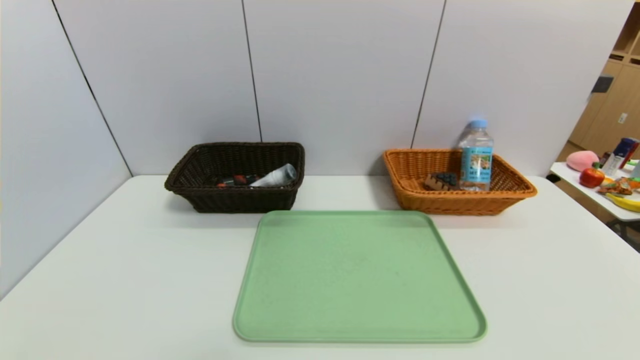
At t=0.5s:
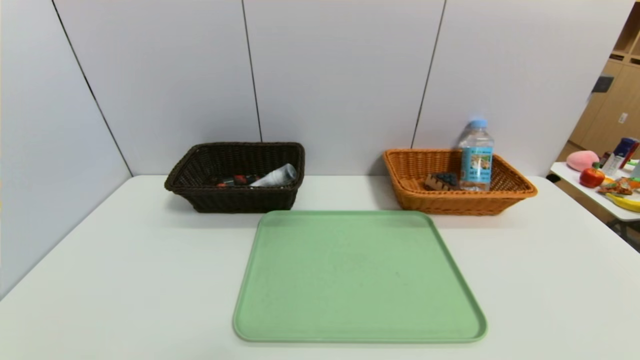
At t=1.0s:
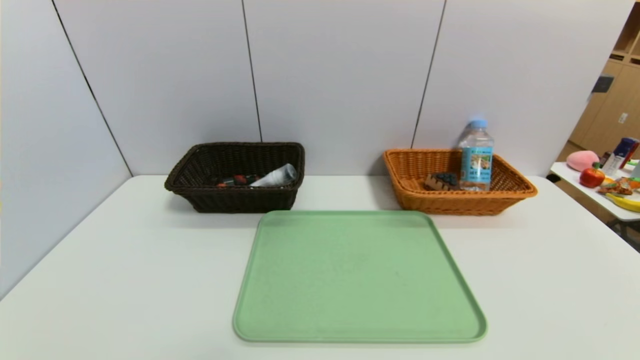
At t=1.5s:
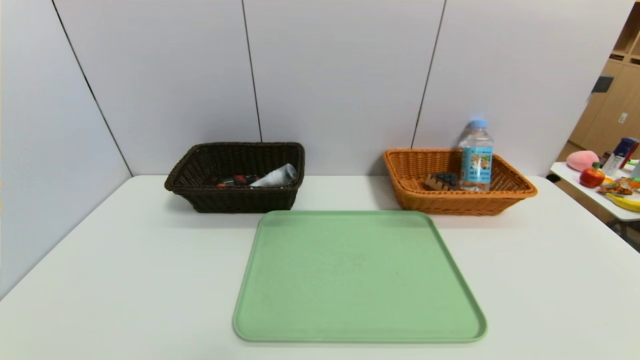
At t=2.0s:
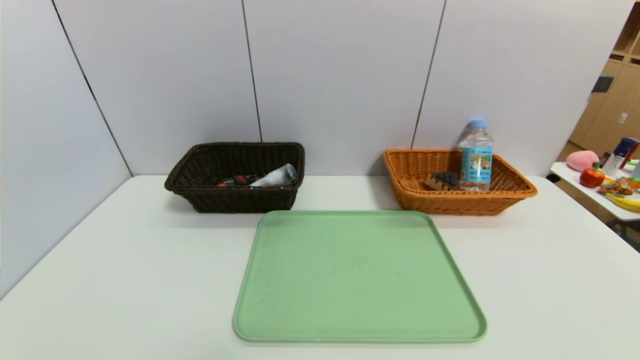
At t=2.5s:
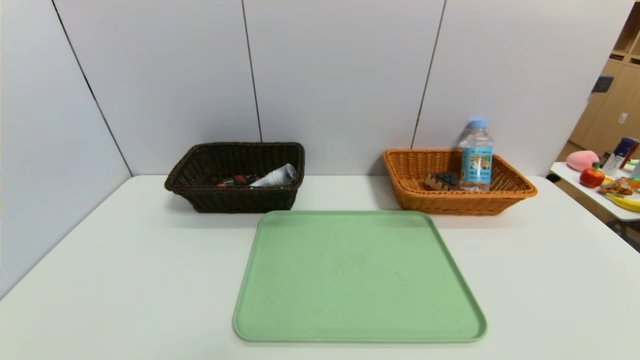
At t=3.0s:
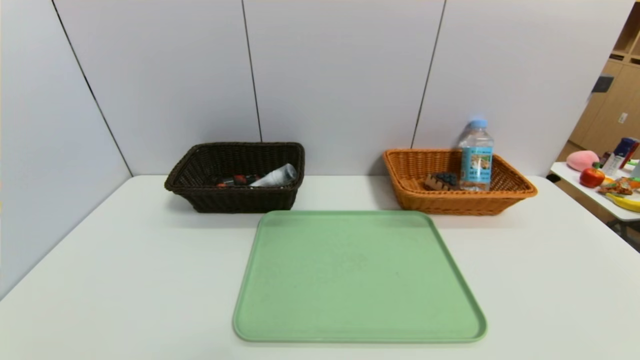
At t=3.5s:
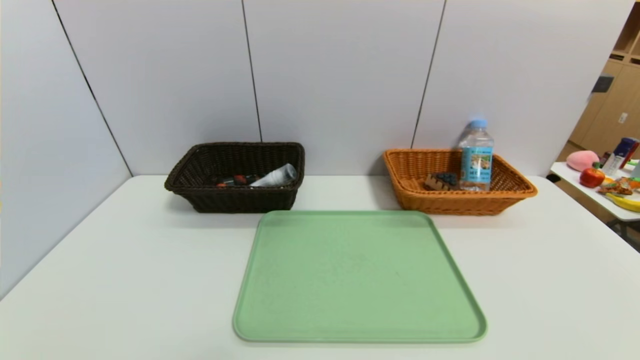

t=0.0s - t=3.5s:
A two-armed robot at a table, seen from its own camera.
Task of the whole recording: place the food in the right basket with the right gripper, and place the non food items in the left basket with the left gripper.
t=2.0s - t=3.5s: Both grippers stay about where they are.

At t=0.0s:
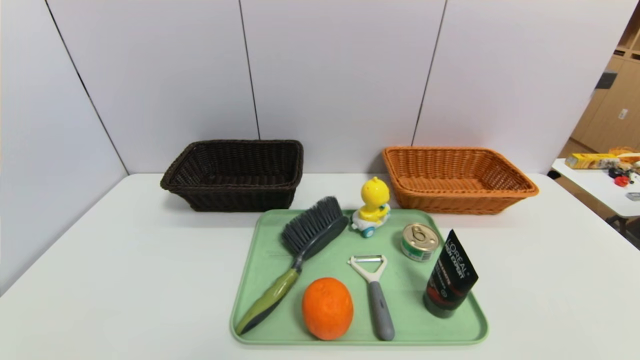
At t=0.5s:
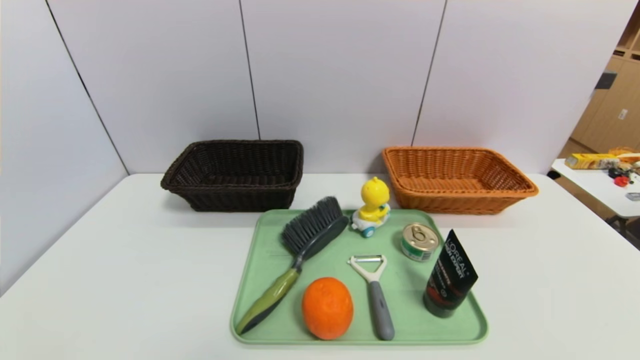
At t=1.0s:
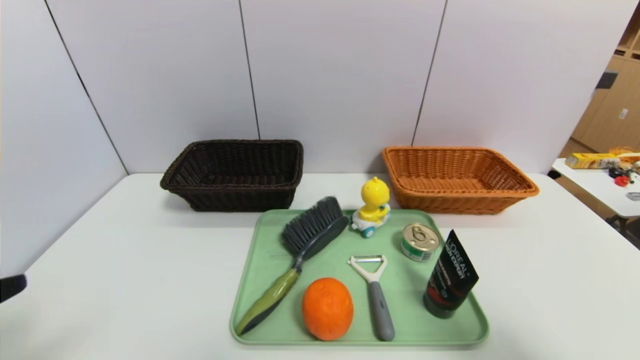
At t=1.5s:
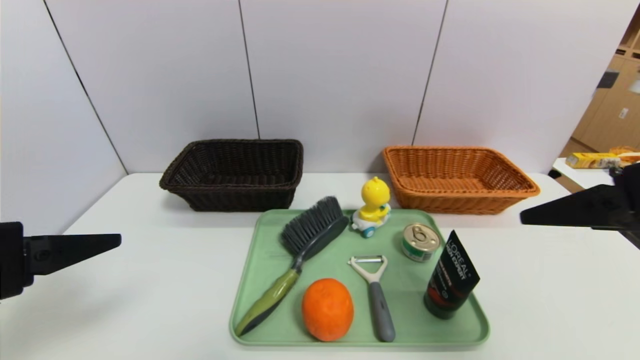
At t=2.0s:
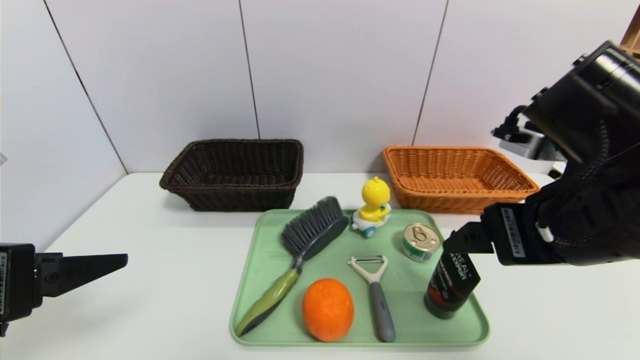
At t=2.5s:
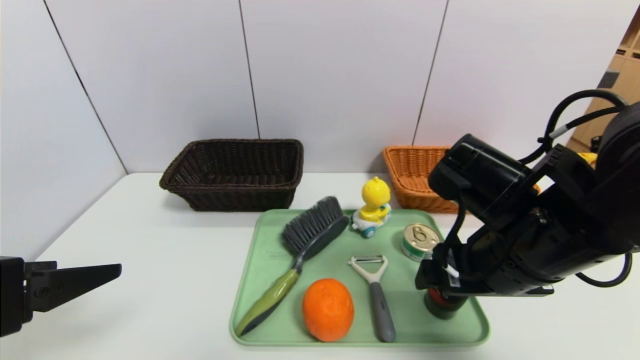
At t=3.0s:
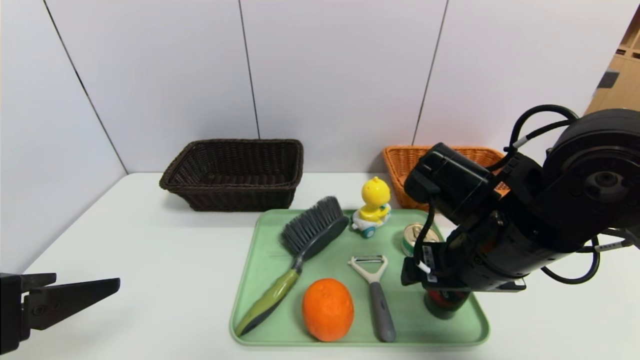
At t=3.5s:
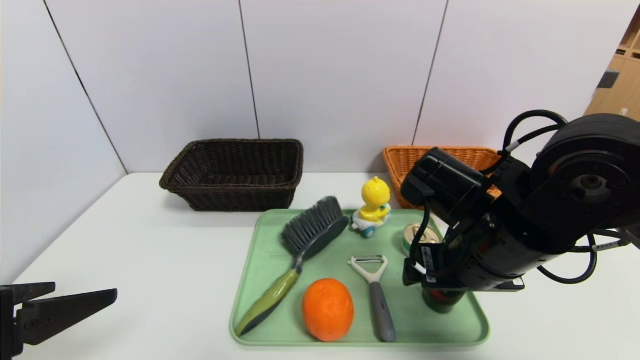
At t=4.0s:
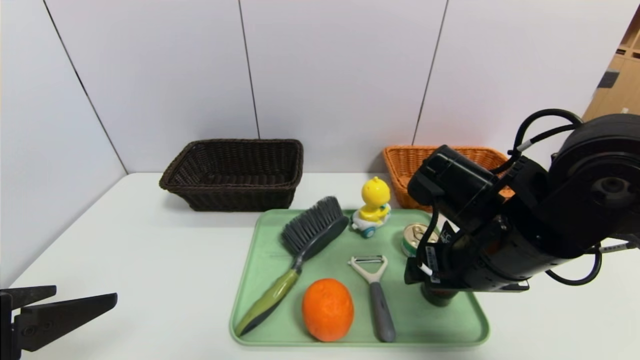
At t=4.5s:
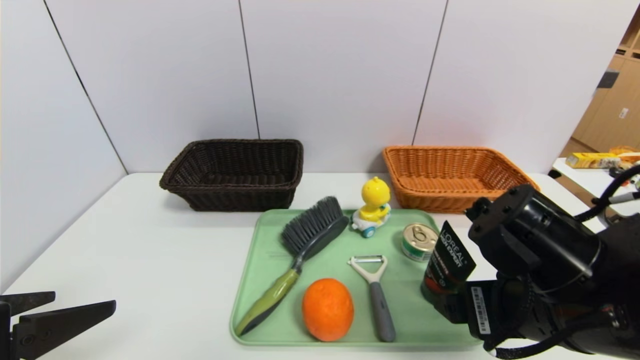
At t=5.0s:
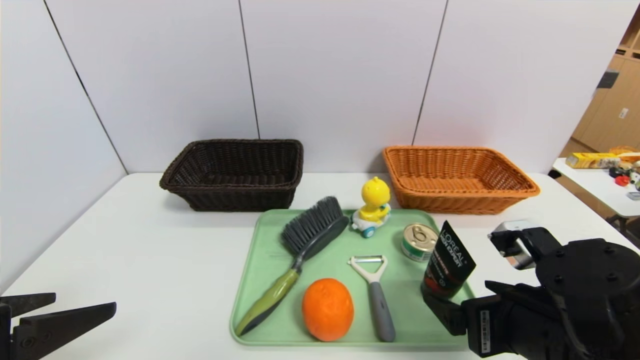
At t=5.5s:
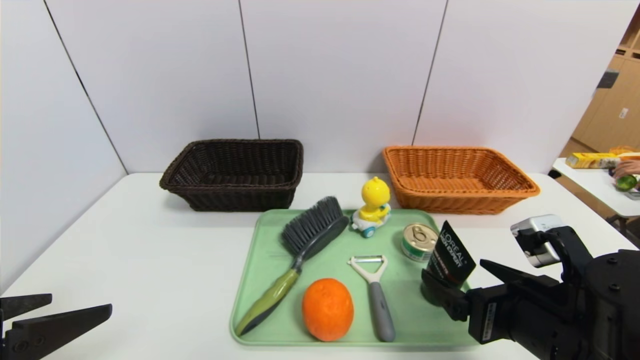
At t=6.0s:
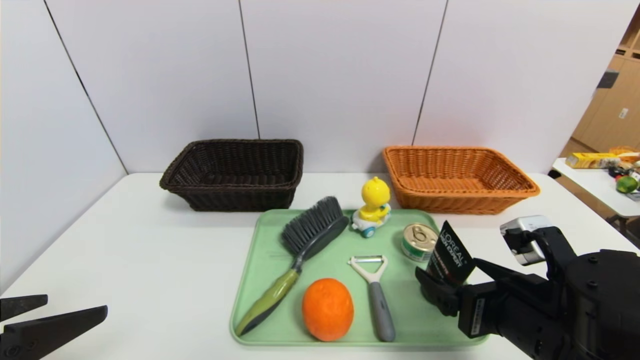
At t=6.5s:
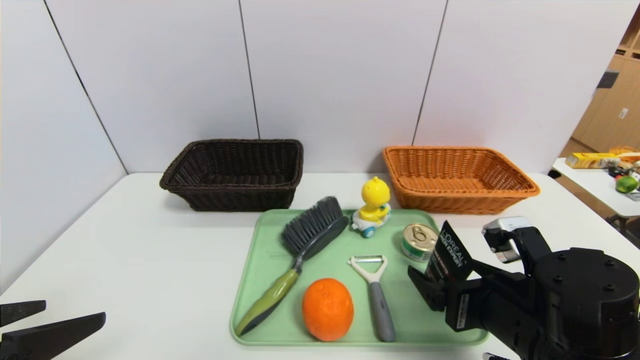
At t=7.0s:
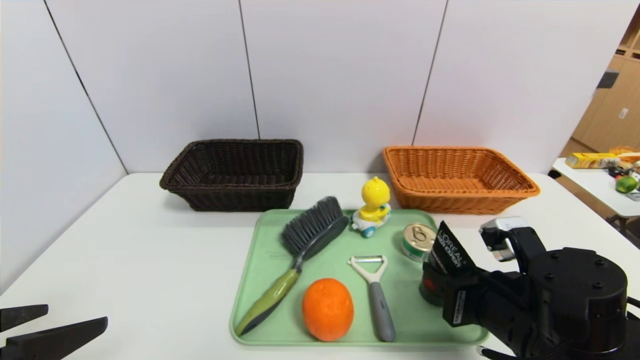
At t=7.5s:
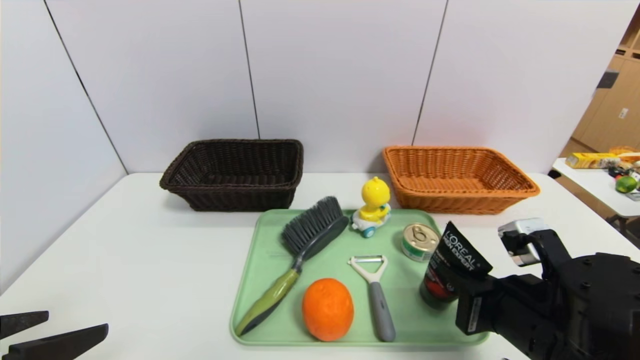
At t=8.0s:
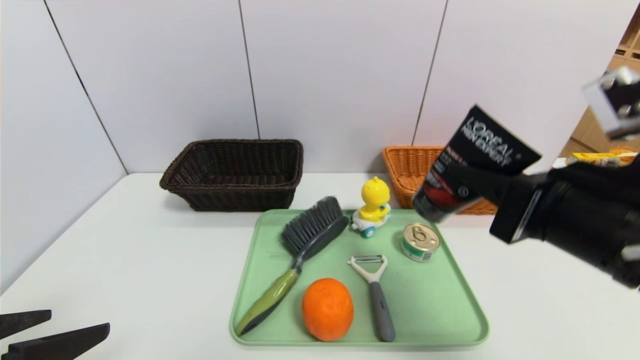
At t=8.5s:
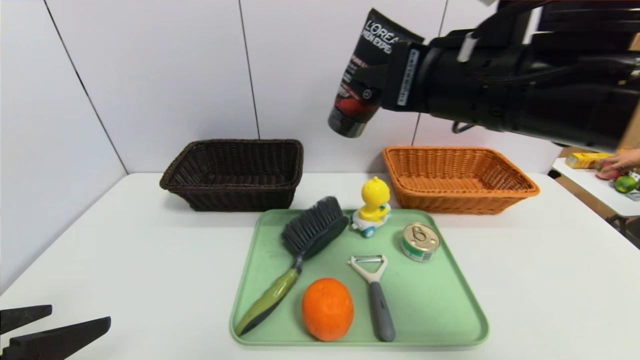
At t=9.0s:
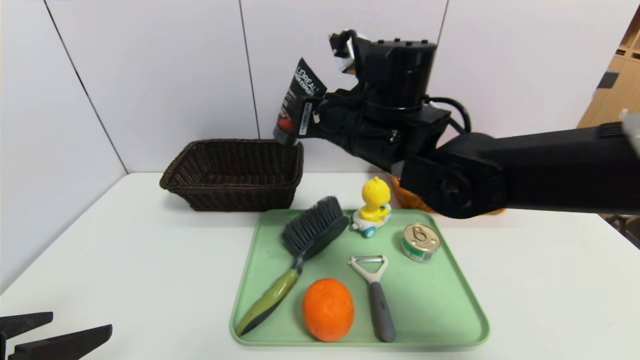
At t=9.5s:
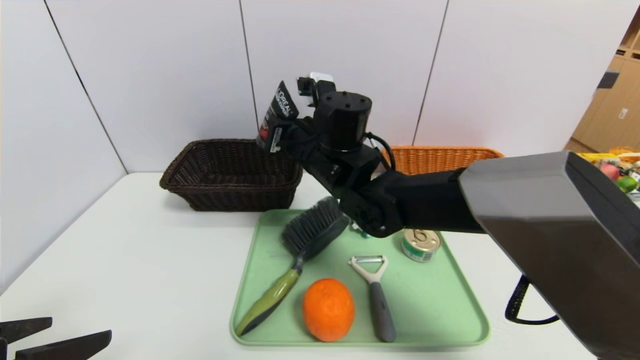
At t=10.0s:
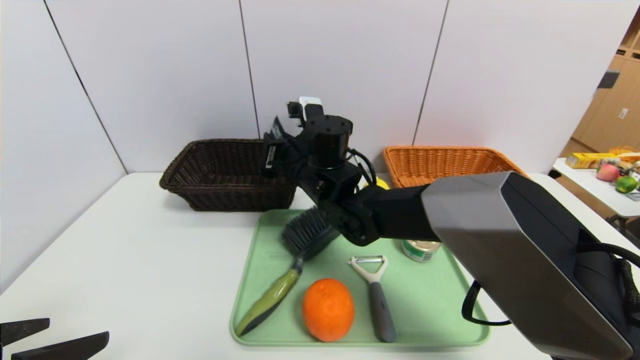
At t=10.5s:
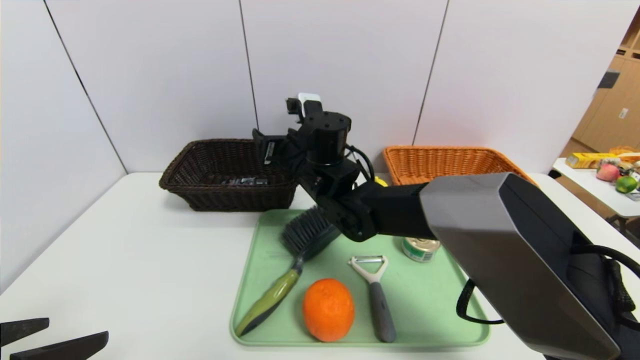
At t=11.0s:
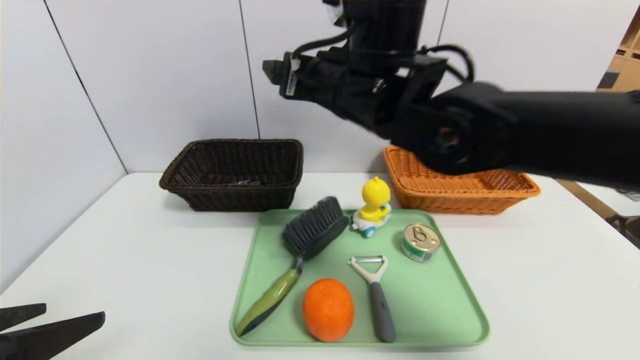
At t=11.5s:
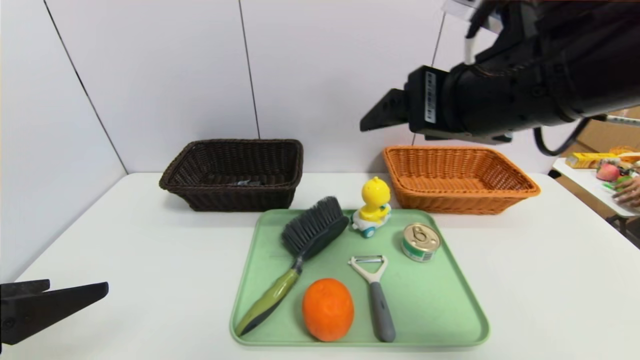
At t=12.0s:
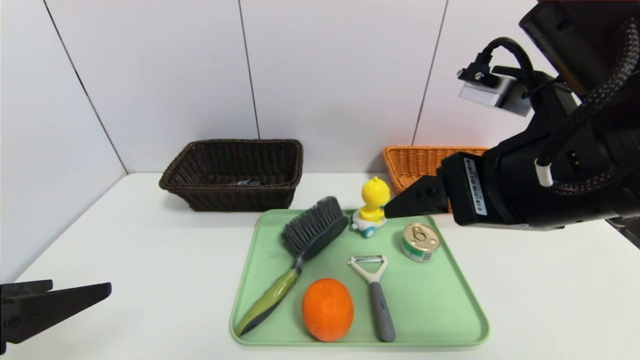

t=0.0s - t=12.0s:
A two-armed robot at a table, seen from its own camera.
Task of the whole recording: place the food in the right basket with the right gripper, and place the non food items in the left basket with the left gripper.
Step, t=0.0s - t=10.5s: Grasp the soft cleanser and put it in the left basket.
t=0.0s - t=2.0s: The right gripper heads upward, forward and to the left, covering approximately 30 cm. The left gripper goes roughly 20 cm upward and forward.
t=2.0s - t=4.0s: The right gripper travels downward by some 5 cm.
t=4.0s - t=6.0s: The right gripper goes roughly 10 cm downward and backward.
t=6.0s - t=8.0s: The right gripper heads upward, covering roughly 15 cm, and closes up.
t=8.0s - t=10.0s: The right gripper shifts about 30 cm to the left and forward.
t=10.0s - t=12.0s: The right gripper is displaced backward, to the right and upward by some 30 cm, and opens.

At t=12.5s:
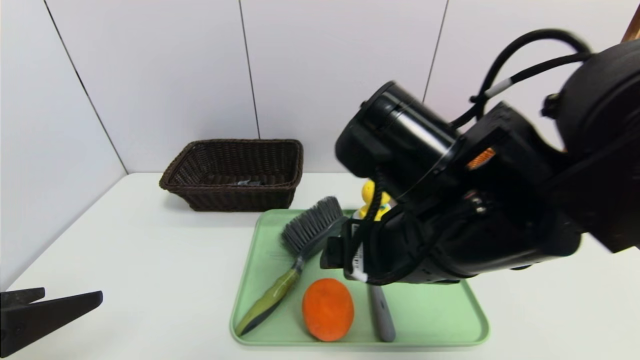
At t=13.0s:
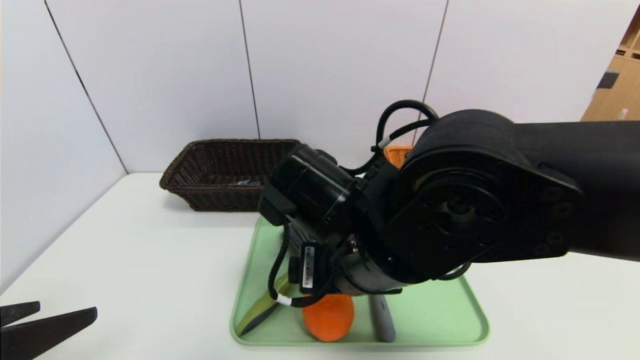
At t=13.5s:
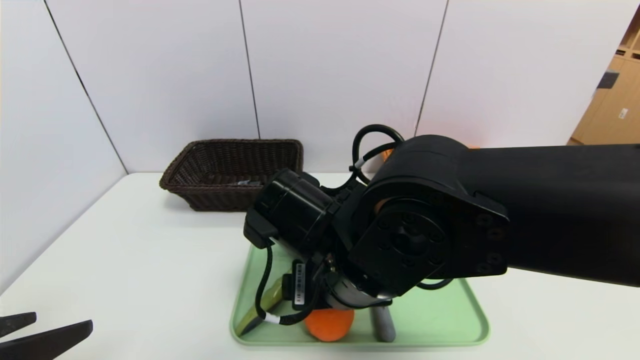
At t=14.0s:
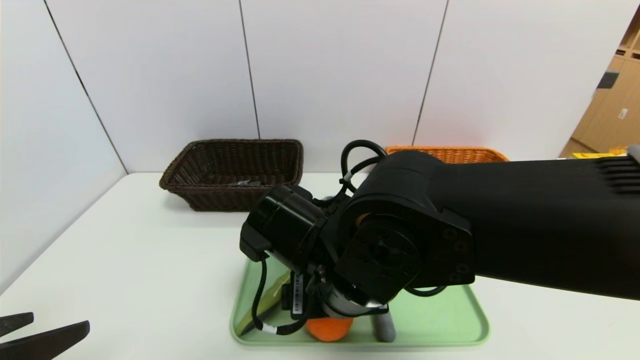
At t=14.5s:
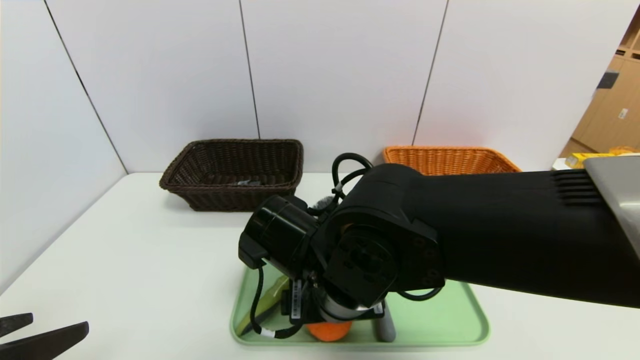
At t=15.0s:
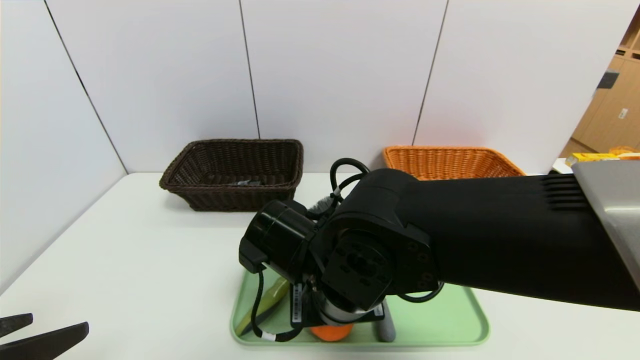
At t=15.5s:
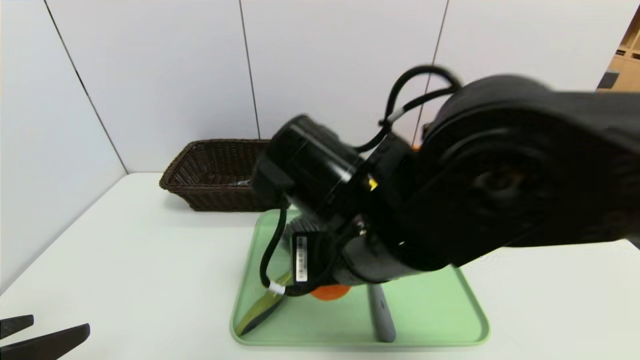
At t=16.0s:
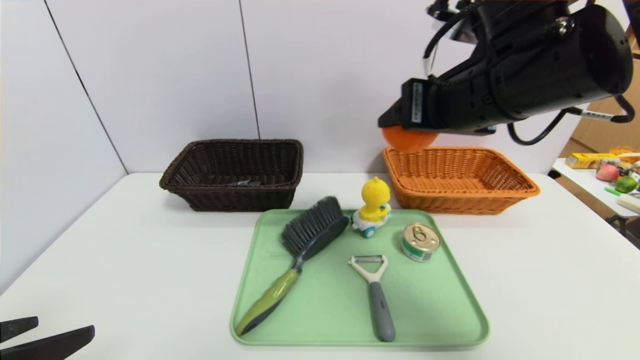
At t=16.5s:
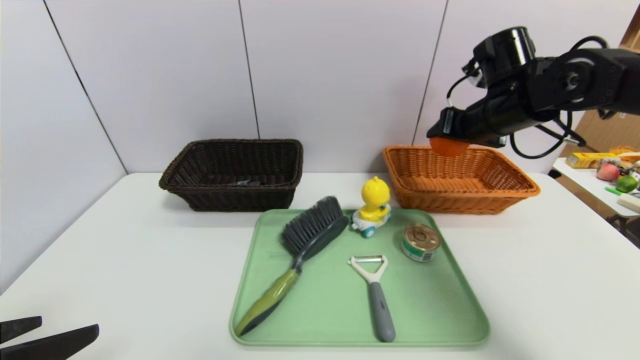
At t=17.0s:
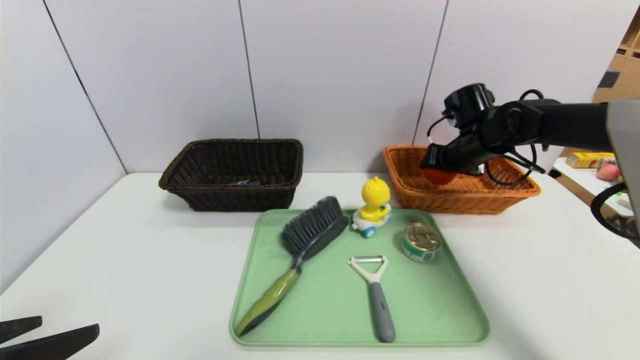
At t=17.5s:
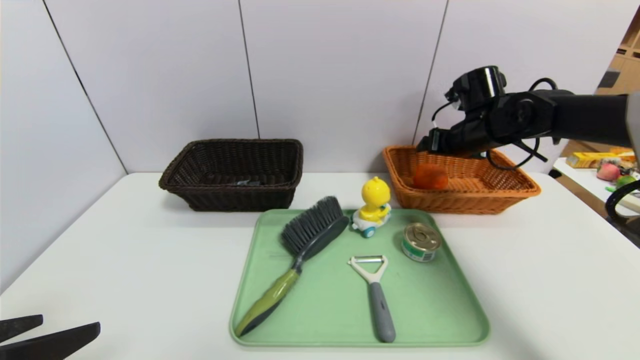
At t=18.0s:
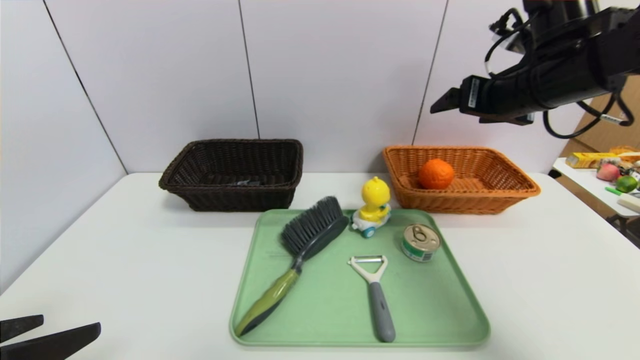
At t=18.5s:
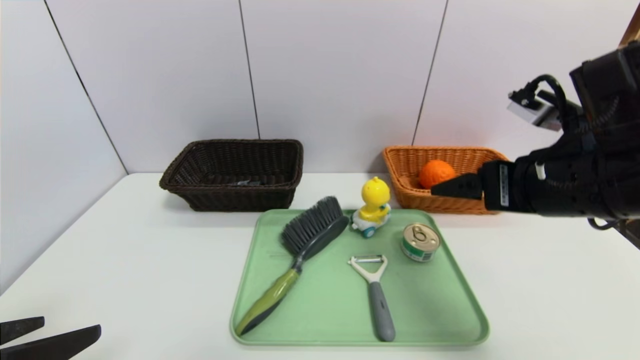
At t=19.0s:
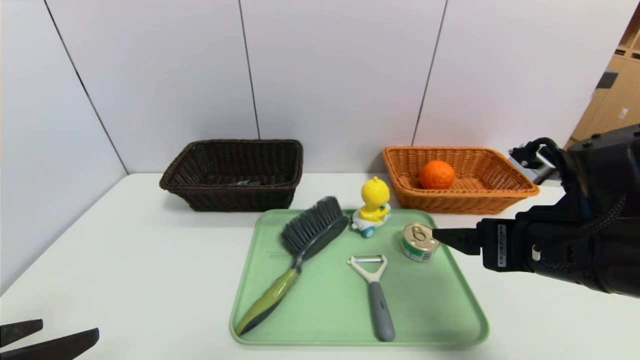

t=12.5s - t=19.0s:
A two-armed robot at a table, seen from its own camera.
Task of the whole recording: place the food in the right basket with the right gripper, and place the non food items in the left basket with the left gripper.
Step, t=12.5s - t=17.0s: Grasp the orange and put it in the right basket.
t=12.5s - t=14.5s: The right gripper goes roughly 10 cm downward and to the left.
t=14.5s - t=17.0s: The right gripper shifts roughly 35 cm to the right and forward.
t=17.0s - t=19.0s: The right gripper goes about 25 cm backward.
